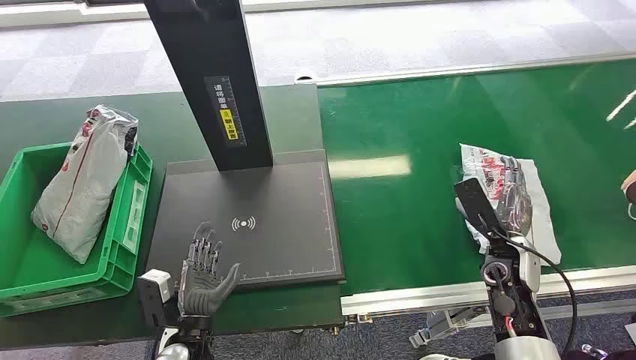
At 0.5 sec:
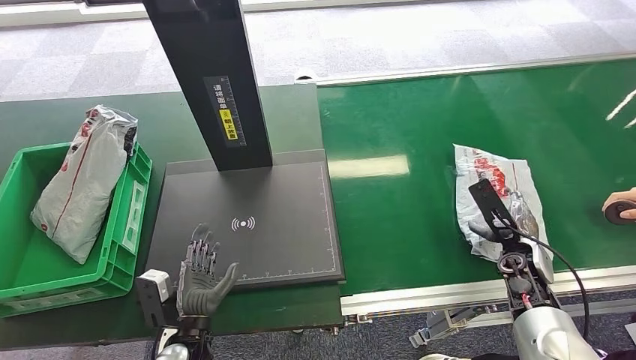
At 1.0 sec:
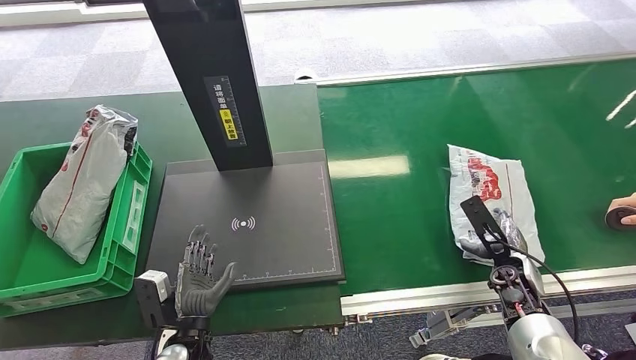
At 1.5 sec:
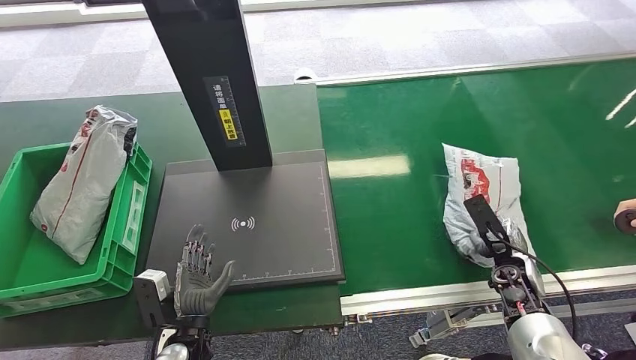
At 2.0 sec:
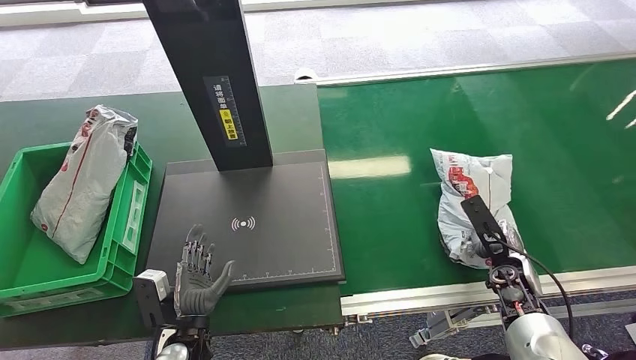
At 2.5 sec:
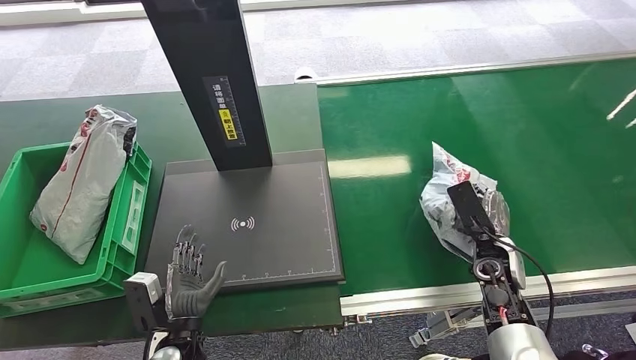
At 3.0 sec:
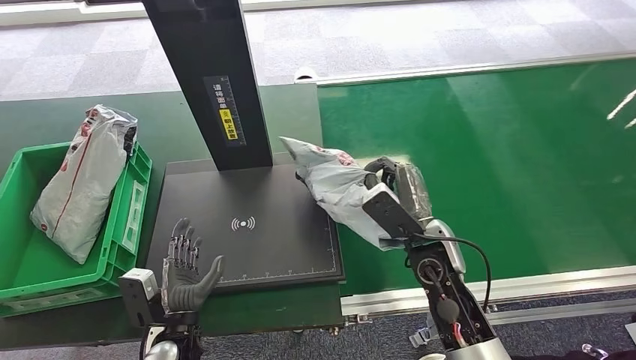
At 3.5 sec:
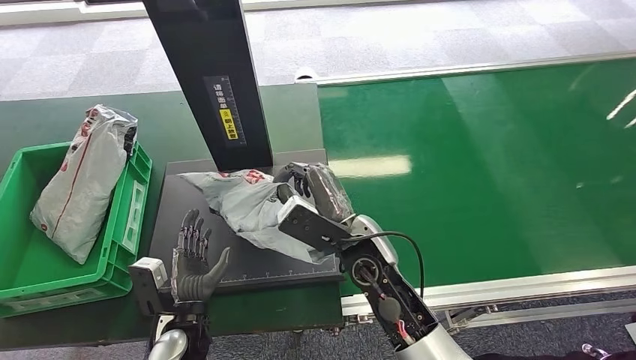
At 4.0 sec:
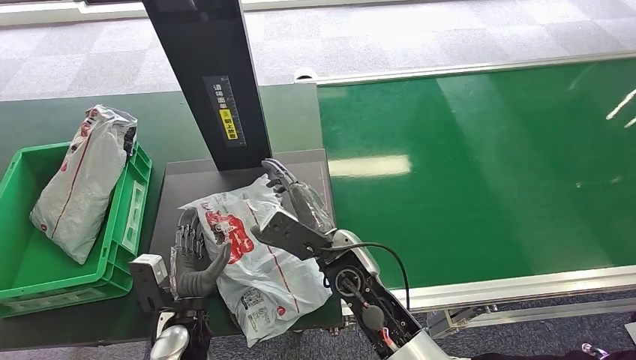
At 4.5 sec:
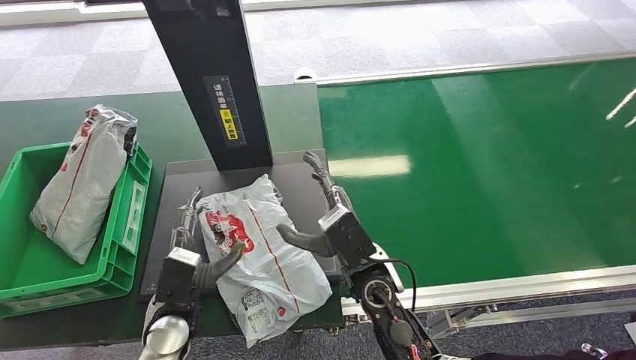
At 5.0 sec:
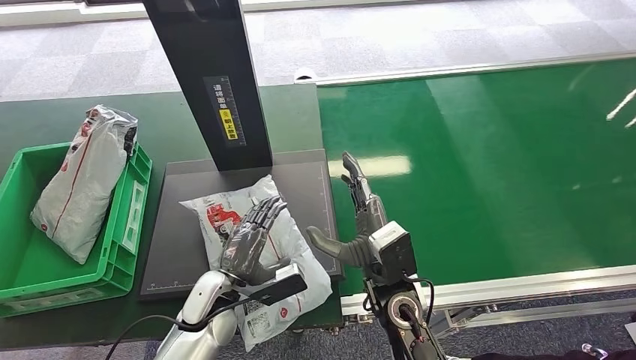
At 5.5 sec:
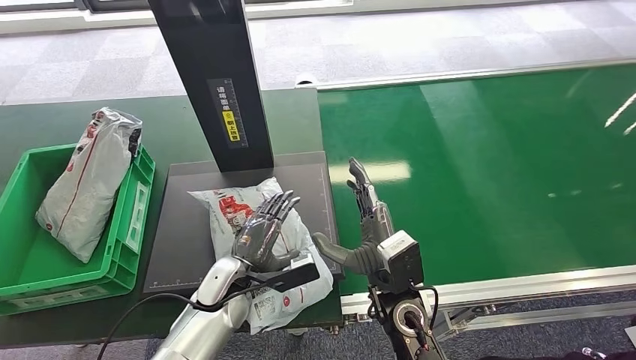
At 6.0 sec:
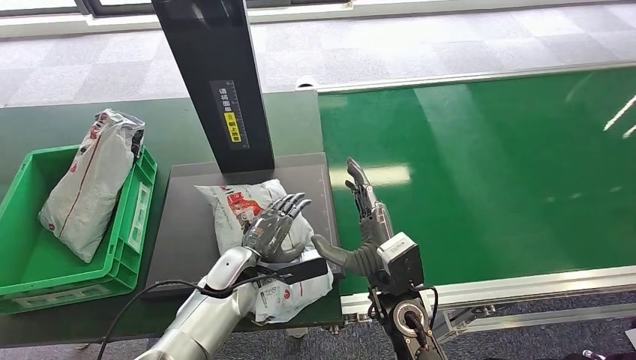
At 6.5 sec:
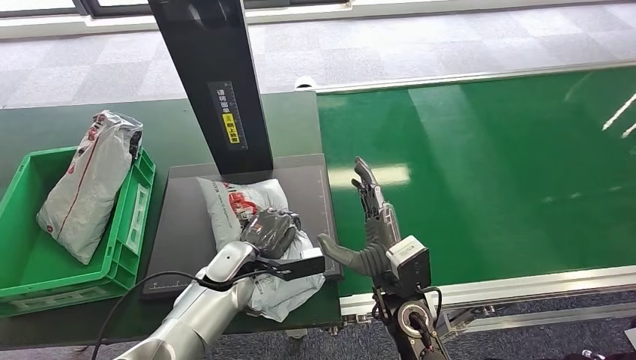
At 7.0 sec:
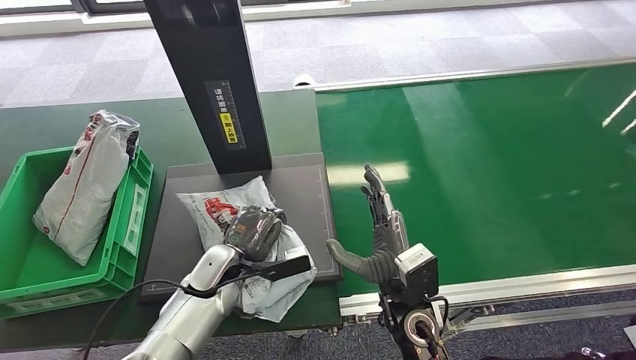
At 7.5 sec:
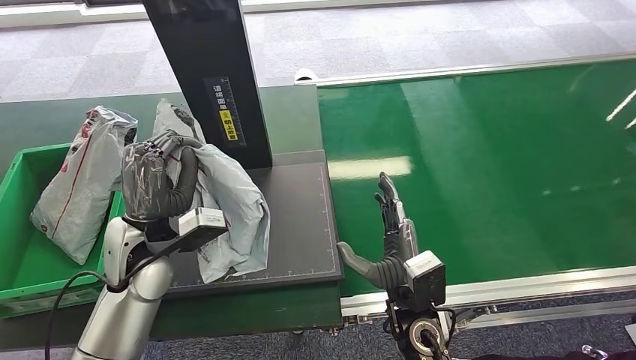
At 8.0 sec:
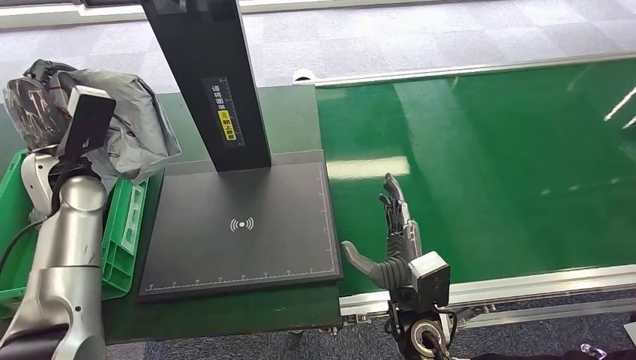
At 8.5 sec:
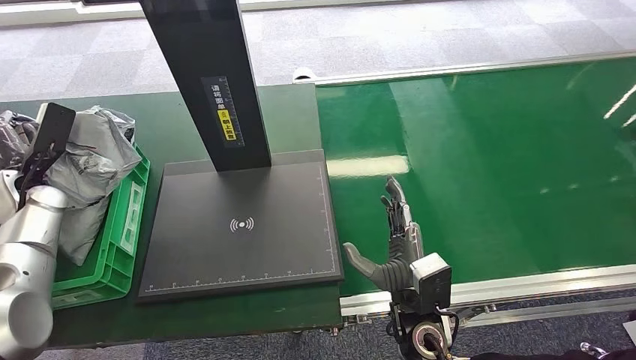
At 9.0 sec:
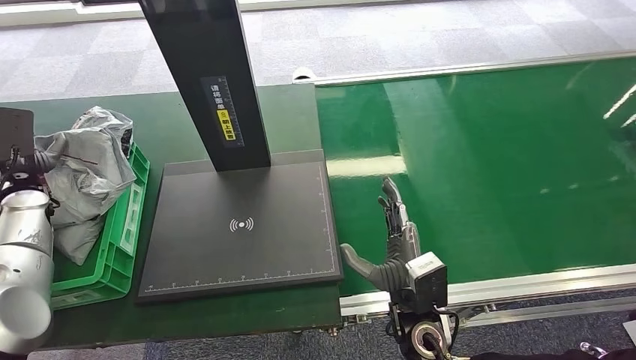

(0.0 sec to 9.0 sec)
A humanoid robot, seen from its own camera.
Step, 0.0 sec - 2.5 sec: Pick up the package from the conveyor belt.
Step, 3.0 sec - 3.5 sec: Place the package onto the inbound machine.
Step, 4.5 sec - 7.0 sec: Pick up the package from the inbound machine.
Step, 7.5 sec - 9.0 sec: Place the package into the parcel locker.
